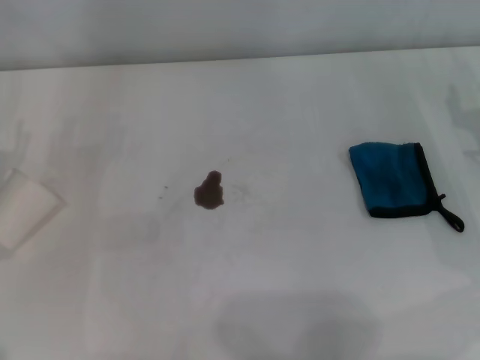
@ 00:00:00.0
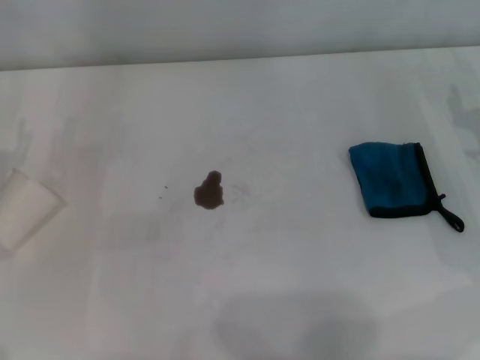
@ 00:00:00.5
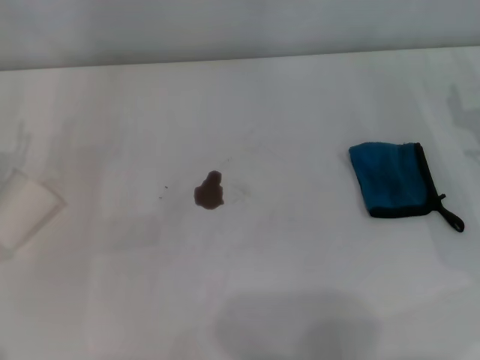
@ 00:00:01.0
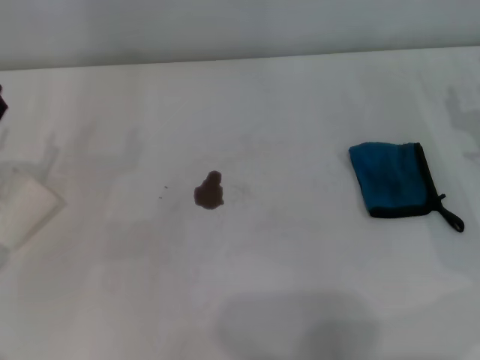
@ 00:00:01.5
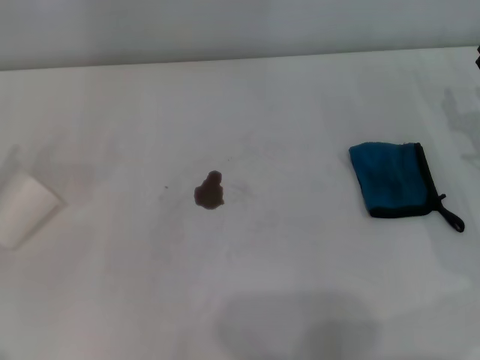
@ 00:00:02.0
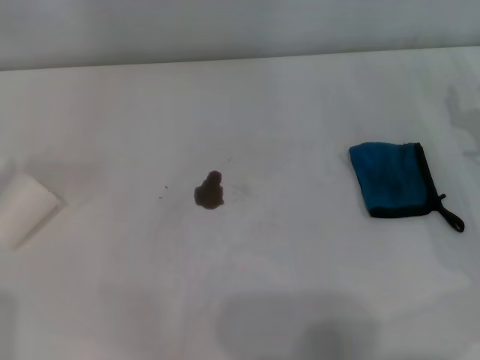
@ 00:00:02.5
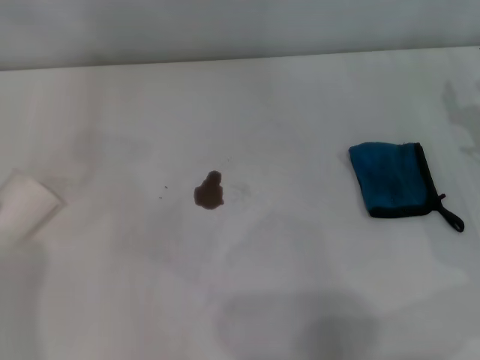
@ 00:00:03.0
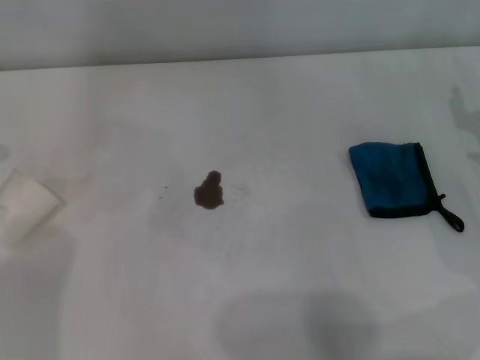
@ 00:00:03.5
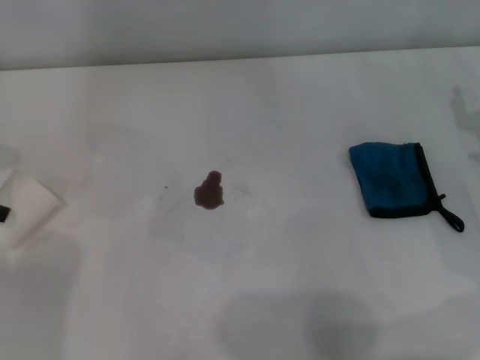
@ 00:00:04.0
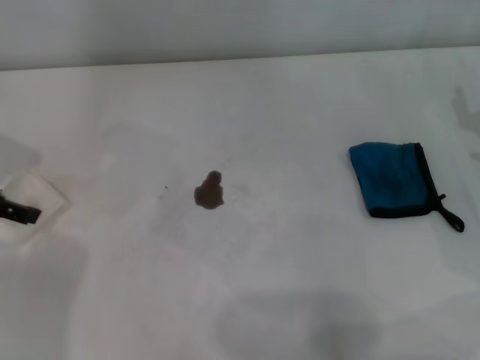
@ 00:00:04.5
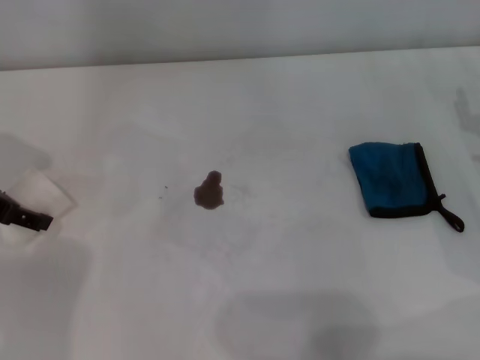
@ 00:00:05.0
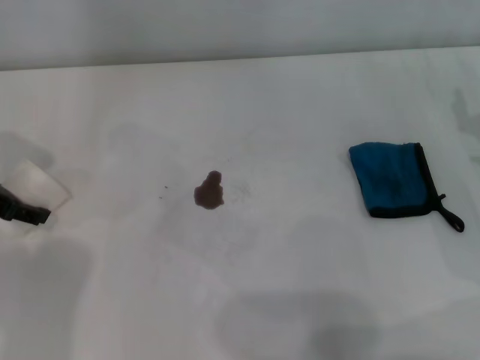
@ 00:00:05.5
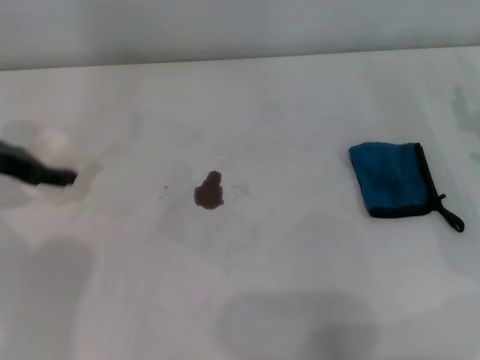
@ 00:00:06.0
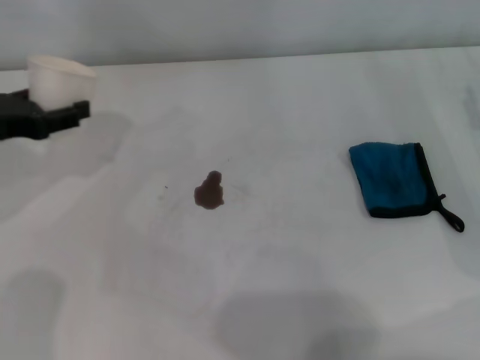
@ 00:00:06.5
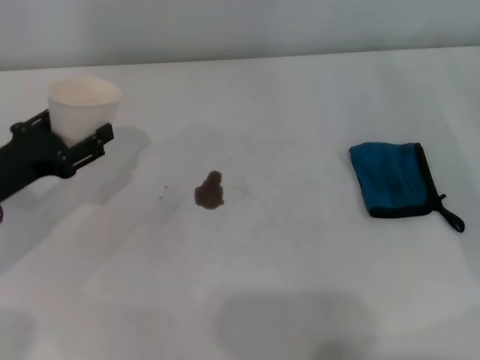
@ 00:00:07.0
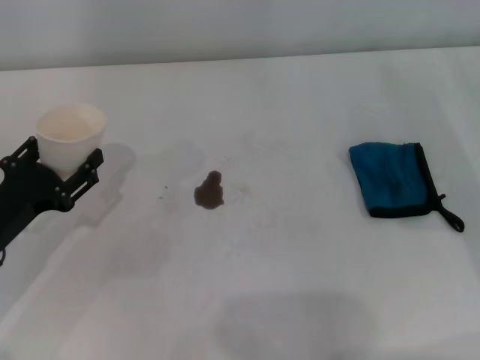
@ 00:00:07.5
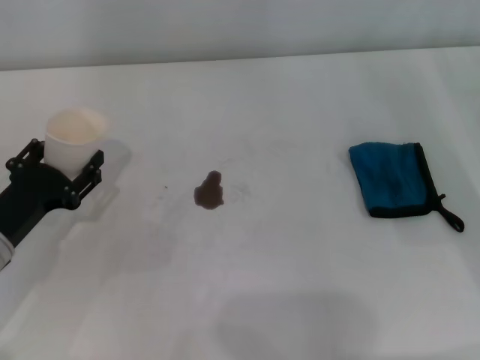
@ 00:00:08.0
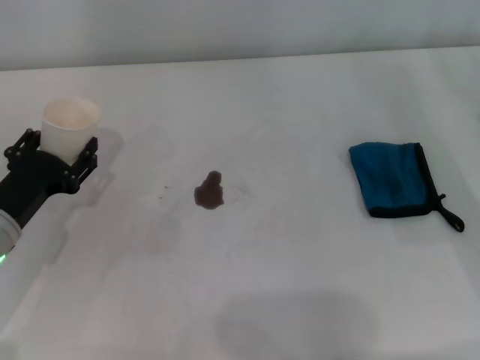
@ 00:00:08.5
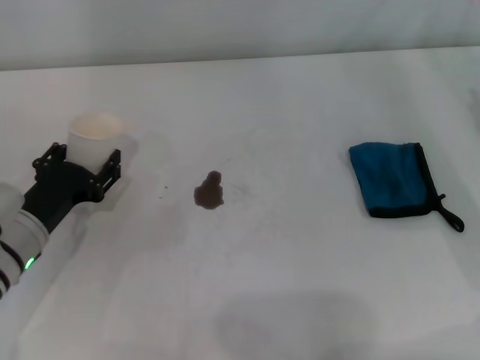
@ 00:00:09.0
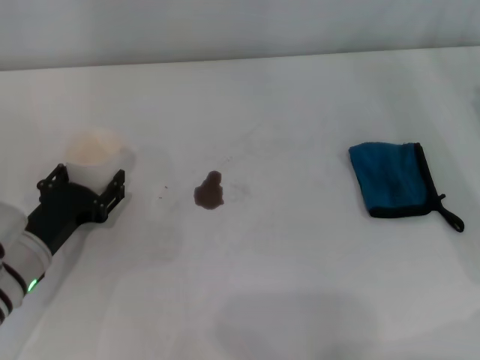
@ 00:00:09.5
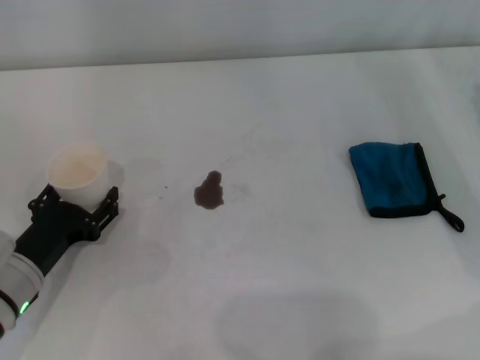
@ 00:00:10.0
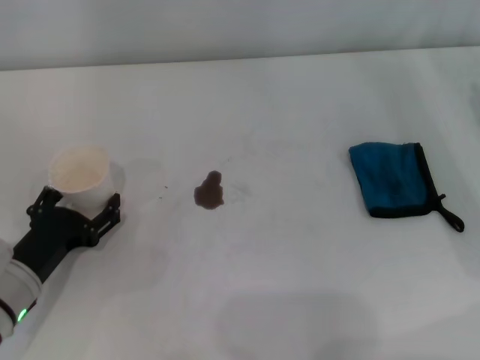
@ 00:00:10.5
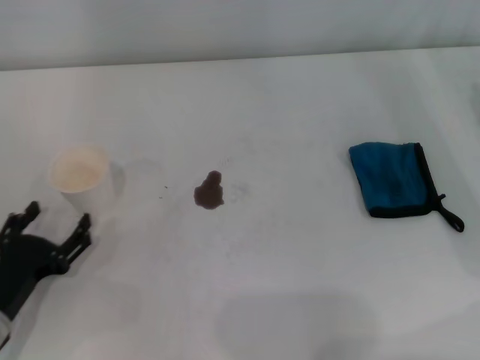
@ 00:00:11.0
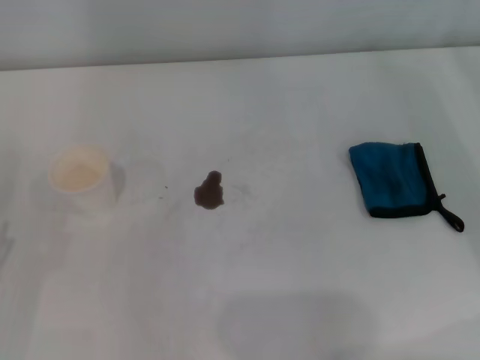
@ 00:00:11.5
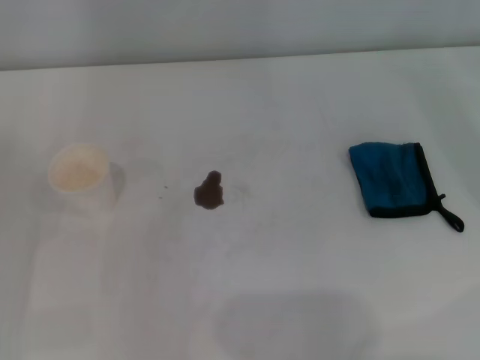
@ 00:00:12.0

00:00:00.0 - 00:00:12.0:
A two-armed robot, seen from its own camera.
Step, 00:00:05.5 - 00:00:10.0: Stand the paper cup upright with the left gripper.
00:00:04.0 - 00:00:06.0: The left gripper goes roughly 5 cm to the right, and closes its fingers.
00:00:06.0 - 00:00:08.0: The right gripper moves about 5 cm. The left gripper moves downward and backward, about 15 cm.
00:00:08.0 - 00:00:10.0: The grippers stay close to where they were, moving slightly.
00:00:10.0 - 00:00:12.0: The left gripper shifts roughly 10 cm to the left and backward, and opens its fingers.

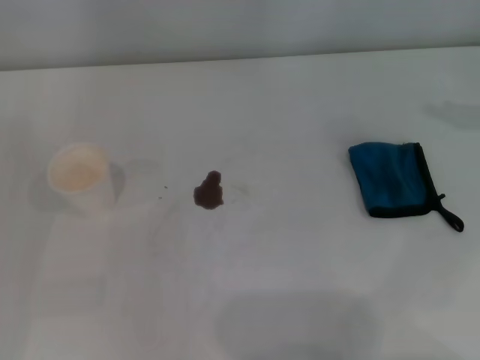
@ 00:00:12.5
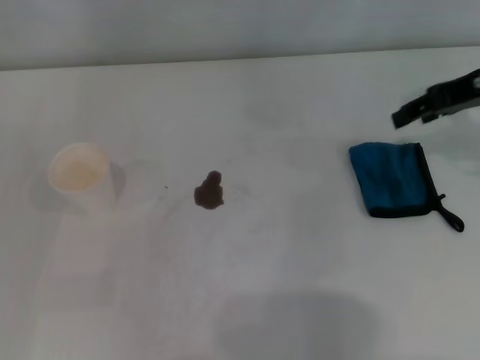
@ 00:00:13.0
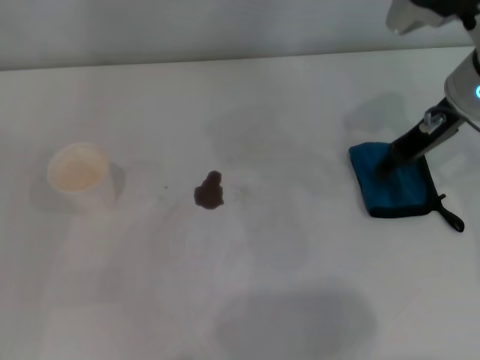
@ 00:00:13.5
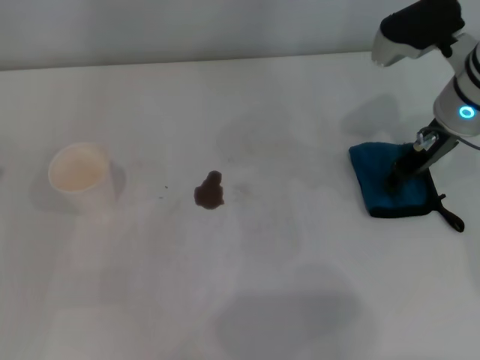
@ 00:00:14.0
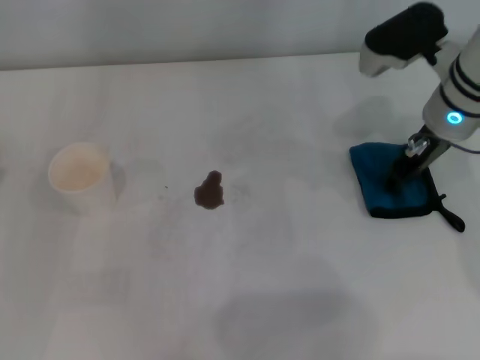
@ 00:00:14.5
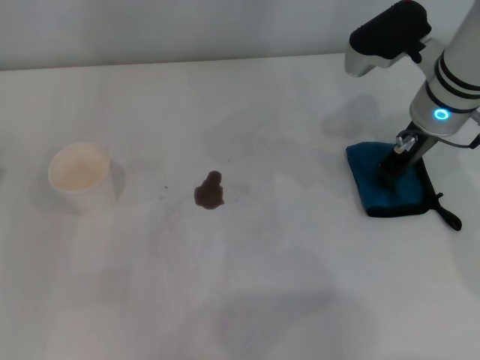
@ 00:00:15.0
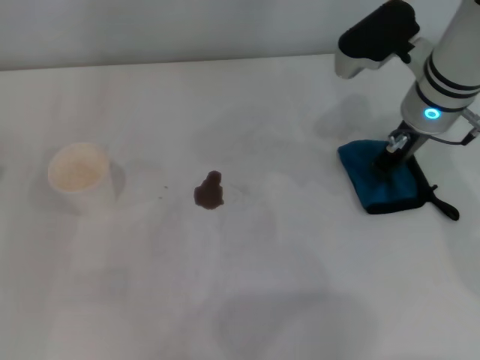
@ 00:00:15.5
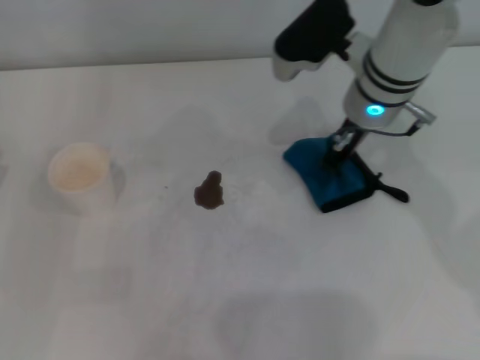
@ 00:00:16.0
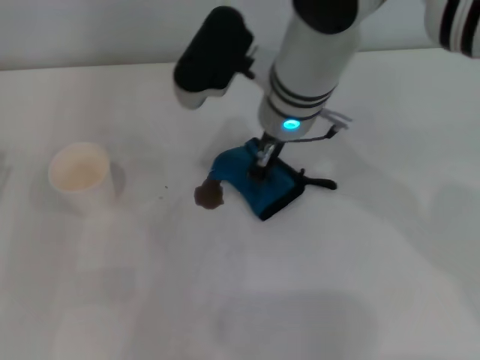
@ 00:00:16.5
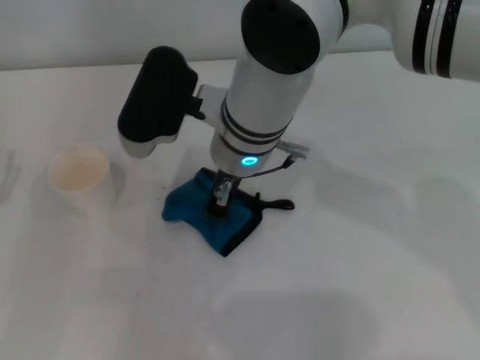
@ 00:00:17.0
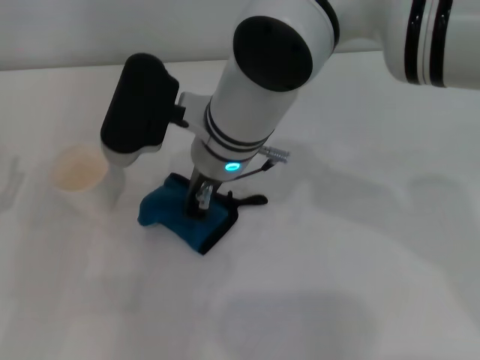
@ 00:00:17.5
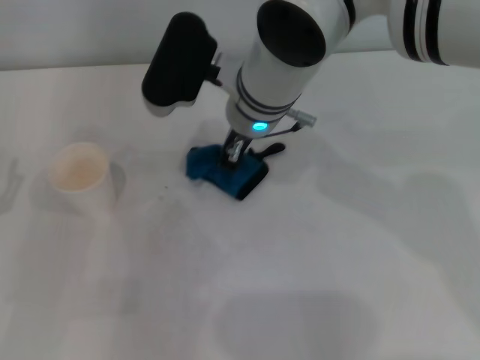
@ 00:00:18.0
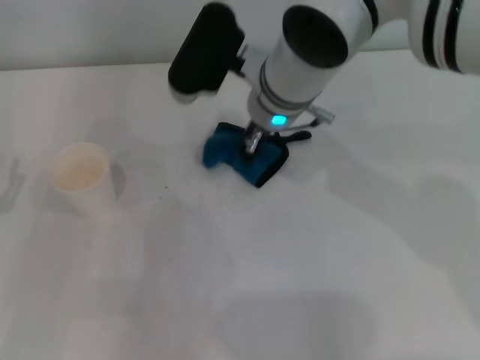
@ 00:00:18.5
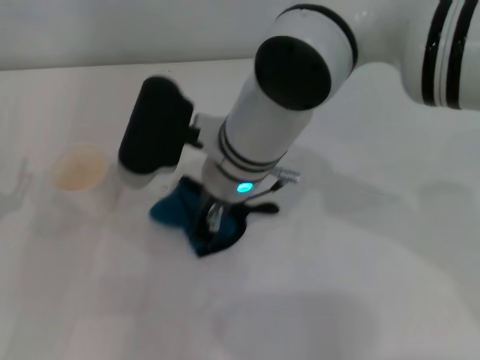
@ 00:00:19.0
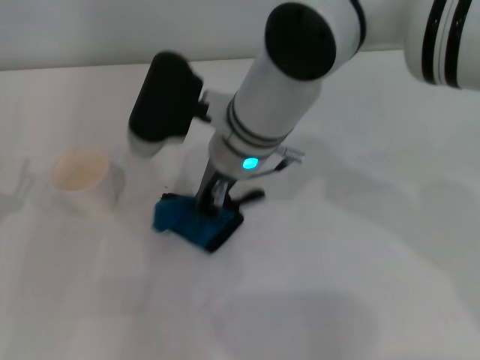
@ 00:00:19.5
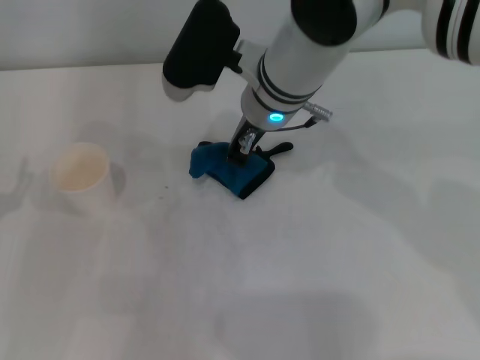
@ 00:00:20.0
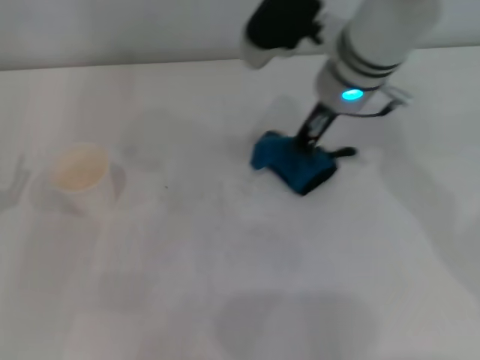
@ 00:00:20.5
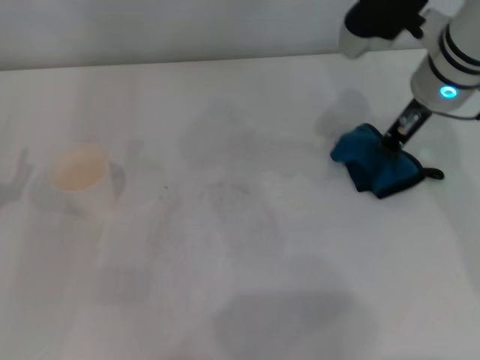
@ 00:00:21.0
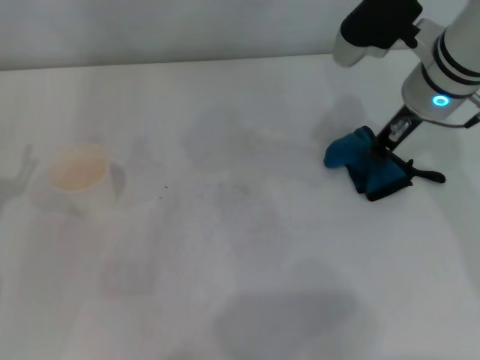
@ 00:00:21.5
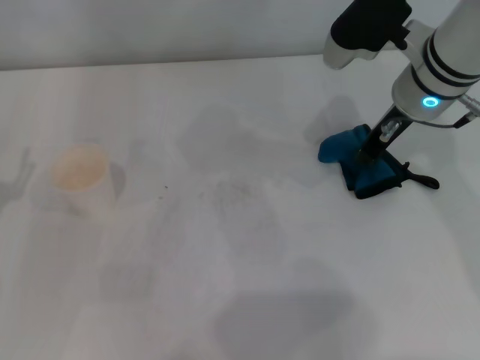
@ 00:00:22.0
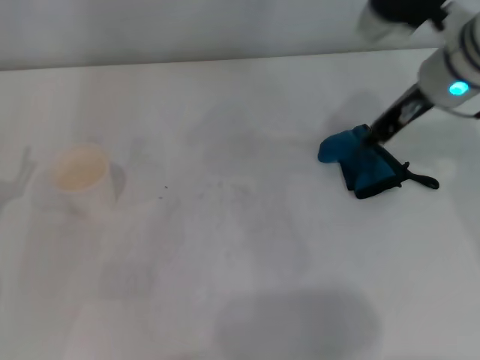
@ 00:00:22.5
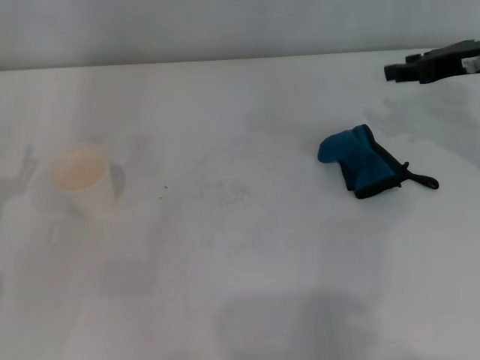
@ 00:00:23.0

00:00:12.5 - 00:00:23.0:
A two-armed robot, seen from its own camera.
Step, 00:00:12.5 - 00:00:15.0: Grasp the rag with the right gripper.
Step, 00:00:15.5 - 00:00:21.0: Wipe the stains off the table with the right gripper.
00:00:12.5 - 00:00:14.5: The right gripper goes about 20 cm to the left and downward.
00:00:14.5 - 00:00:16.5: The right gripper goes some 15 cm to the left, and closes up.
00:00:16.5 - 00:00:19.0: The right gripper moves left and right over about 5 cm, changing direction 2 times.
00:00:19.0 - 00:00:21.0: The right gripper heads to the right, covering roughly 20 cm.
00:00:21.0 - 00:00:23.0: The right gripper heads to the right, covering roughly 10 cm, and opens up.

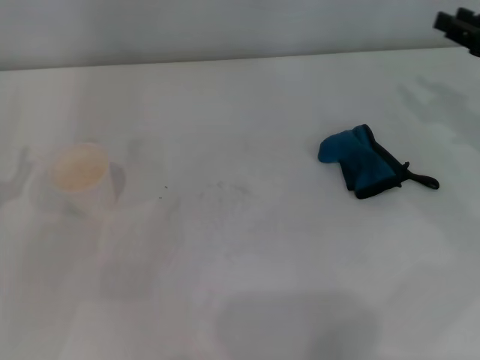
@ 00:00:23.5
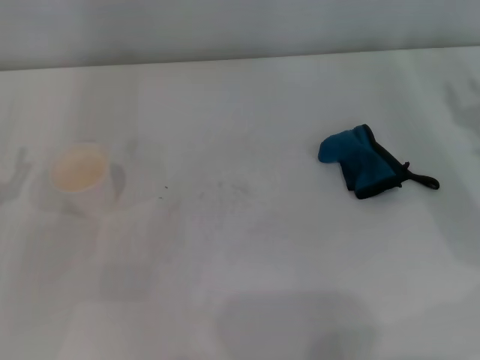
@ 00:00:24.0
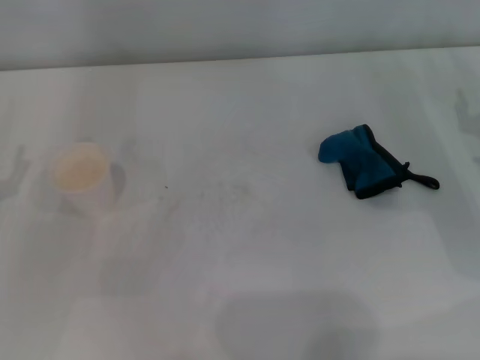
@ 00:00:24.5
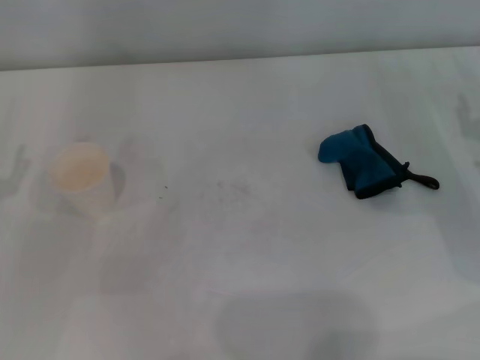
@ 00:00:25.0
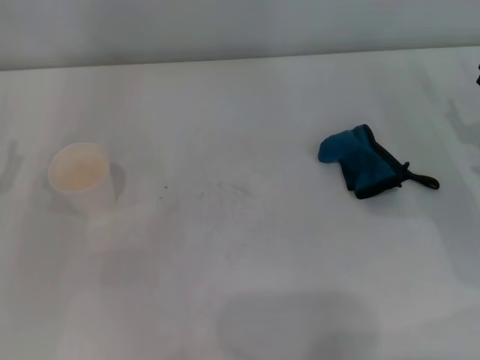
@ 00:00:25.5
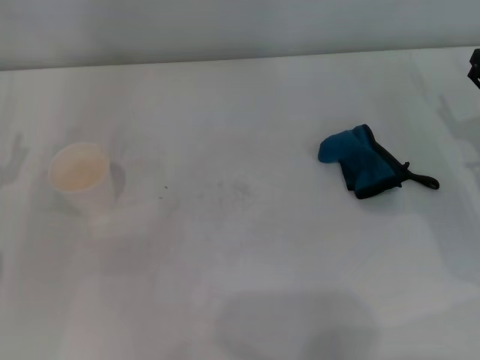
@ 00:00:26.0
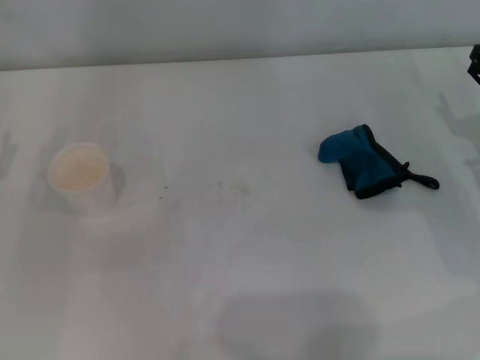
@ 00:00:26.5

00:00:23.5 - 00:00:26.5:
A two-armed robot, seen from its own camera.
00:00:23.5 - 00:00:25.0: The right gripper goes approximately 10 cm downward.
